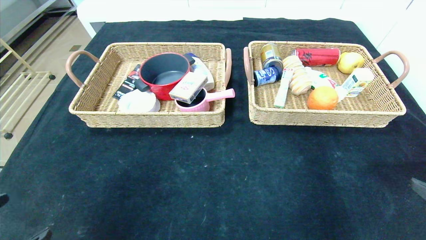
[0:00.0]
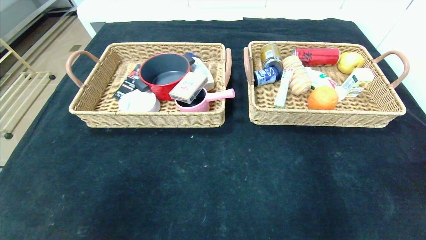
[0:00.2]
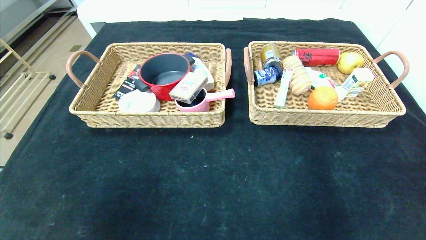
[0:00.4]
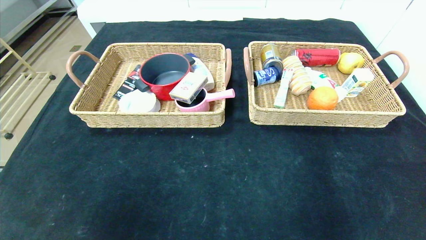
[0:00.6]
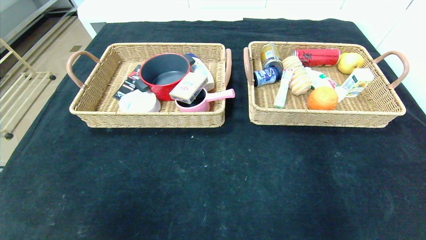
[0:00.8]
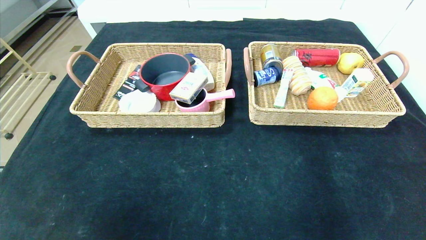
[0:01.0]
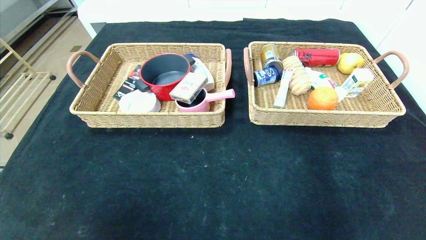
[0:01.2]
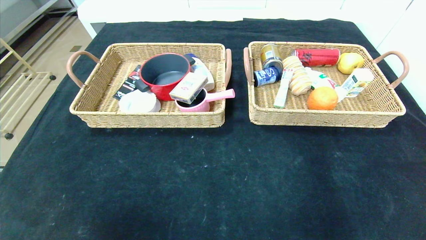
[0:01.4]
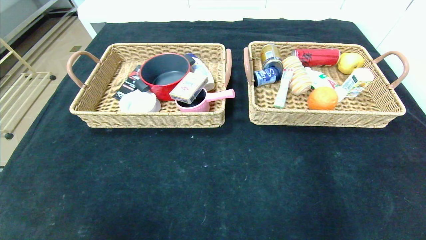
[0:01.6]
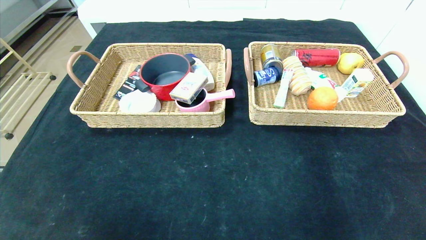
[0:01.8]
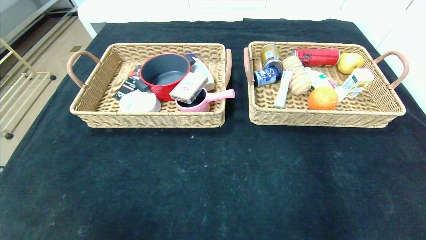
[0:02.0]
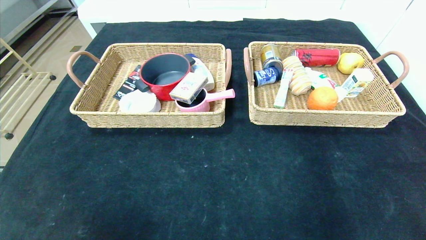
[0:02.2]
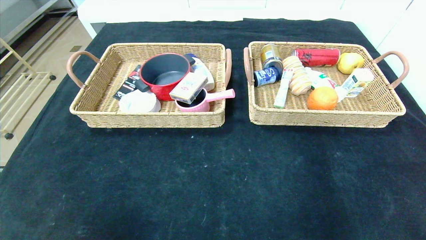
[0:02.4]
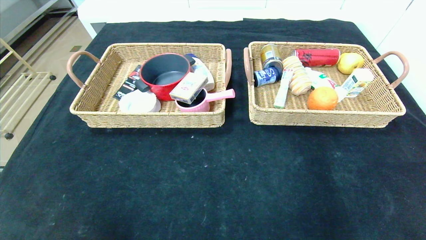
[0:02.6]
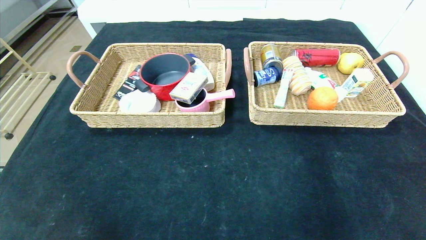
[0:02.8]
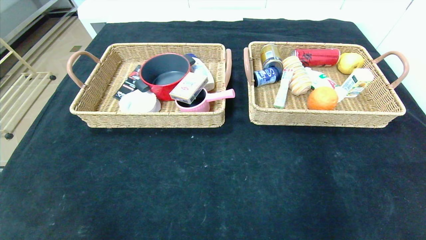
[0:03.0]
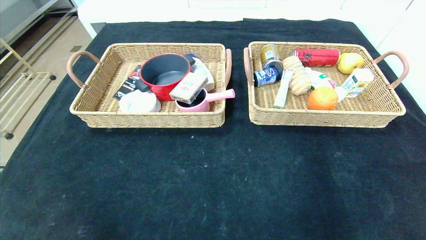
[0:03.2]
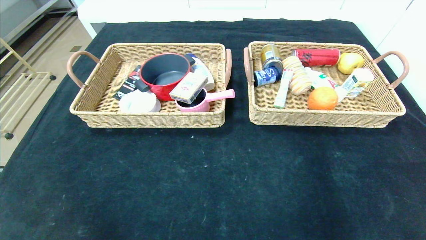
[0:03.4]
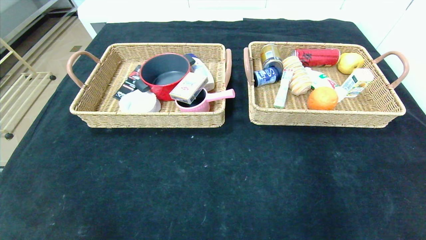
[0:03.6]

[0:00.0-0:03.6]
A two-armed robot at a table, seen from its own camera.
0:00.0 to 0:01.8: The right gripper moves backward and downward, some 15 cm; the left gripper moves backward, roughly 10 cm.
